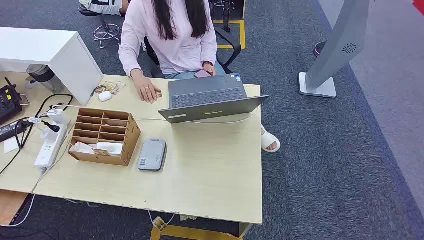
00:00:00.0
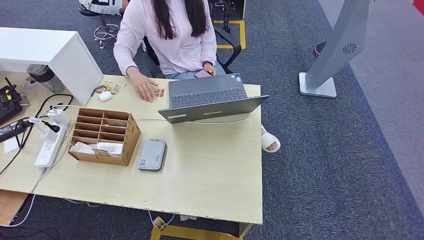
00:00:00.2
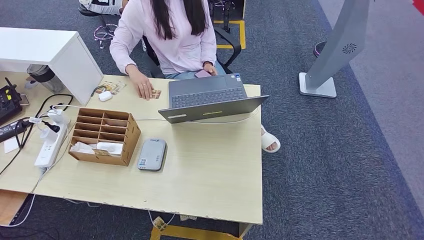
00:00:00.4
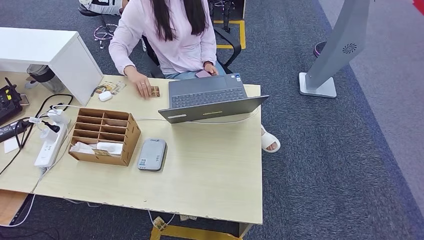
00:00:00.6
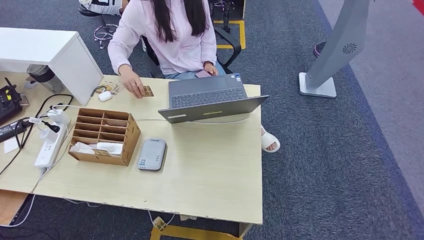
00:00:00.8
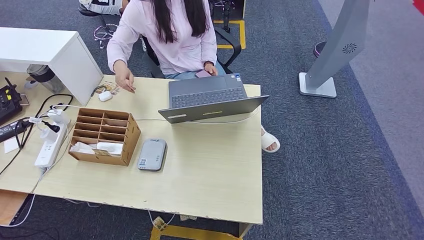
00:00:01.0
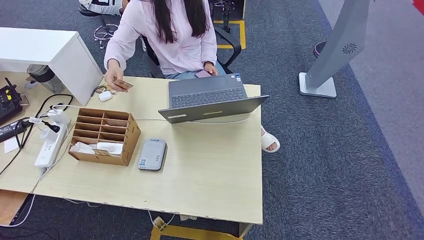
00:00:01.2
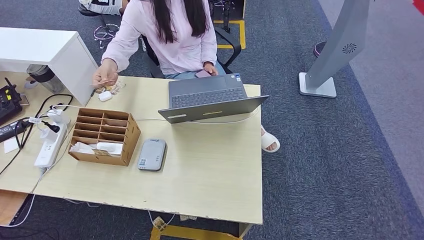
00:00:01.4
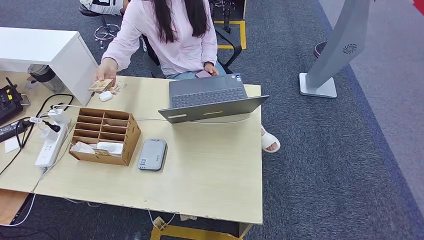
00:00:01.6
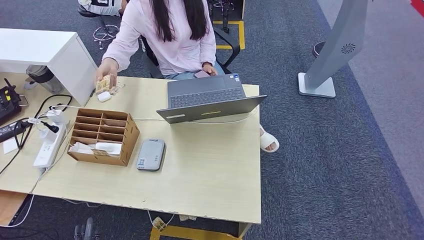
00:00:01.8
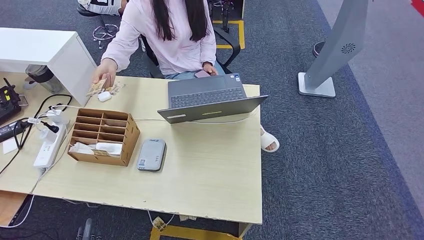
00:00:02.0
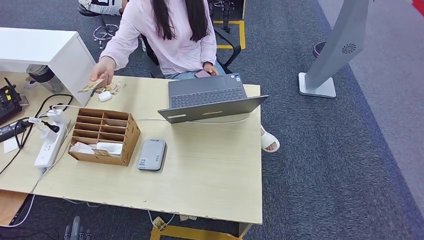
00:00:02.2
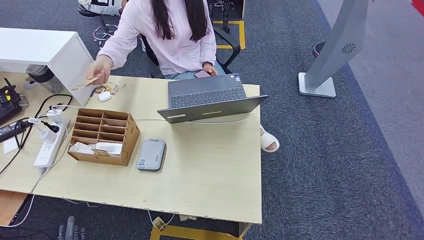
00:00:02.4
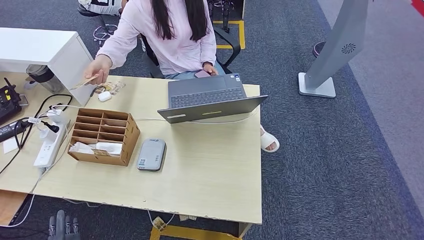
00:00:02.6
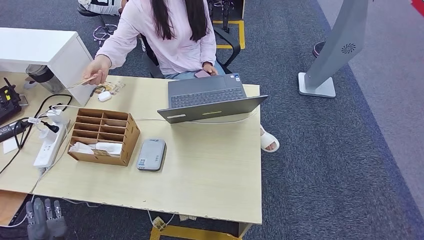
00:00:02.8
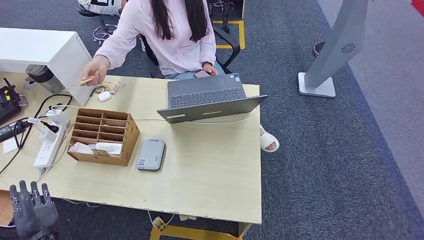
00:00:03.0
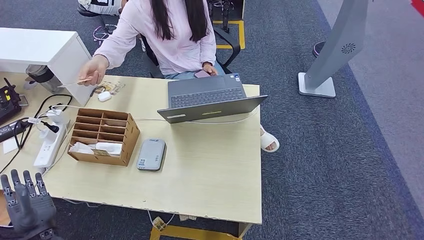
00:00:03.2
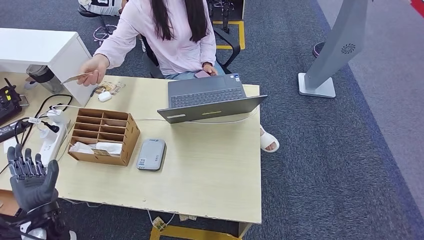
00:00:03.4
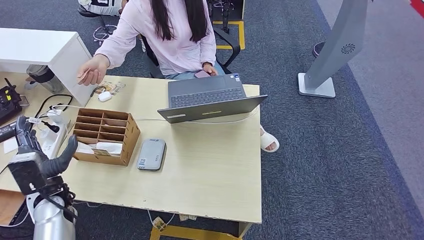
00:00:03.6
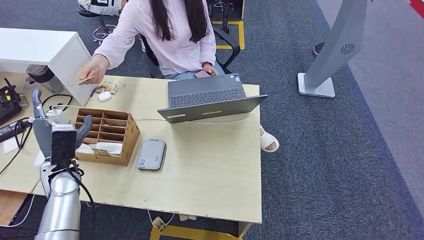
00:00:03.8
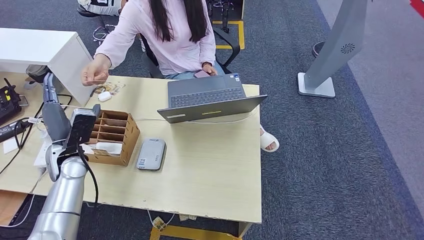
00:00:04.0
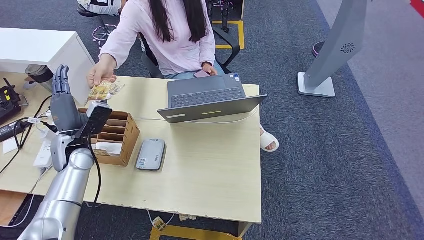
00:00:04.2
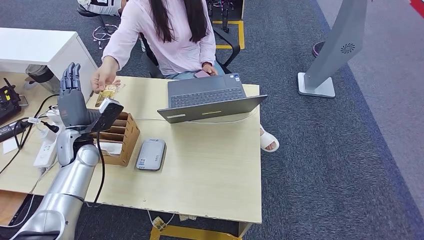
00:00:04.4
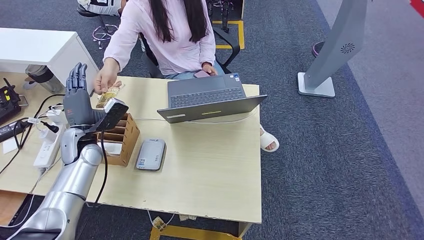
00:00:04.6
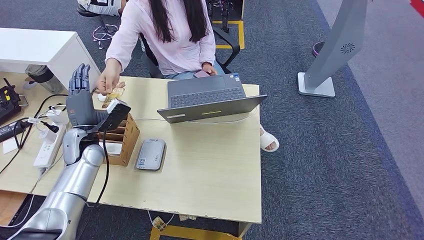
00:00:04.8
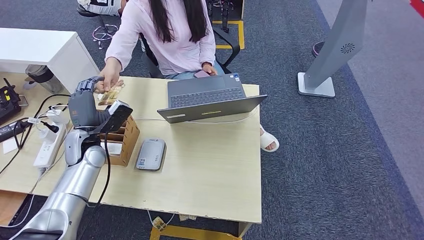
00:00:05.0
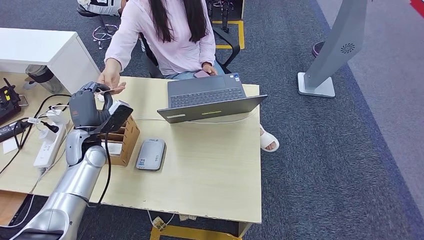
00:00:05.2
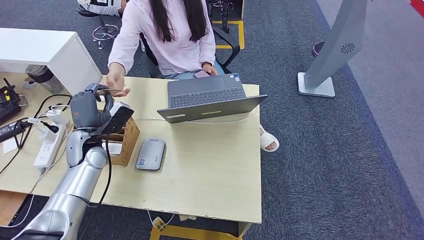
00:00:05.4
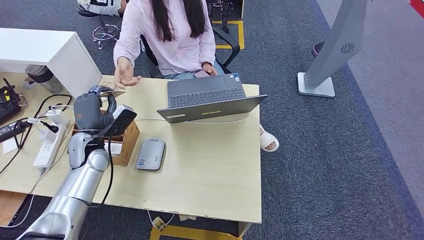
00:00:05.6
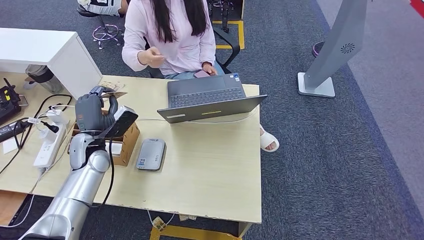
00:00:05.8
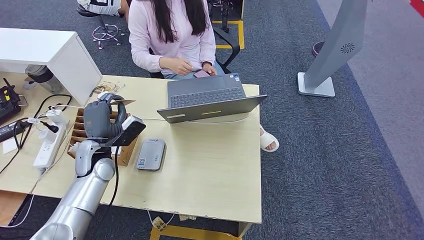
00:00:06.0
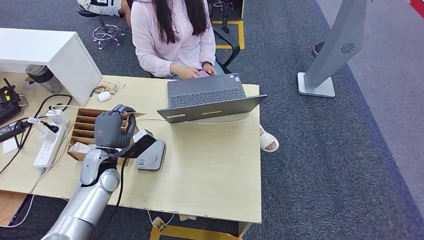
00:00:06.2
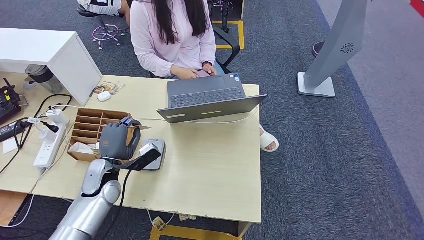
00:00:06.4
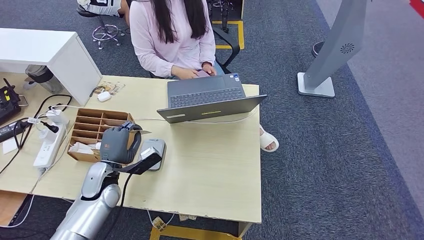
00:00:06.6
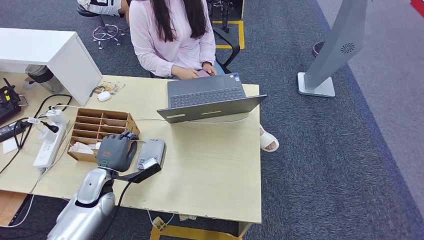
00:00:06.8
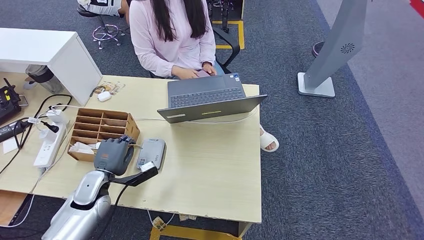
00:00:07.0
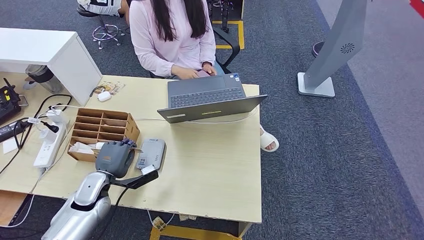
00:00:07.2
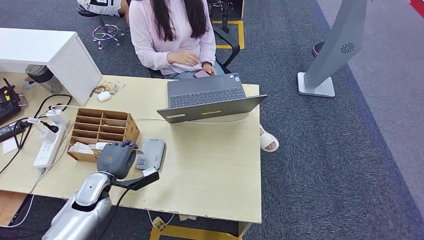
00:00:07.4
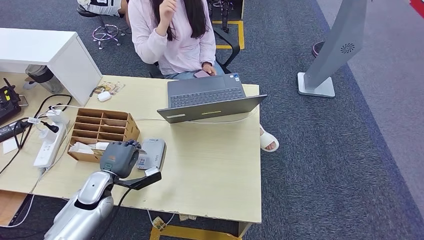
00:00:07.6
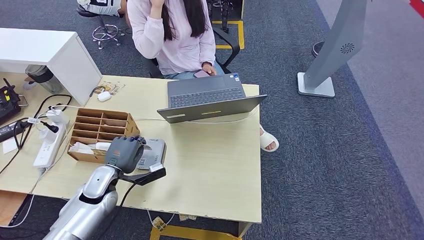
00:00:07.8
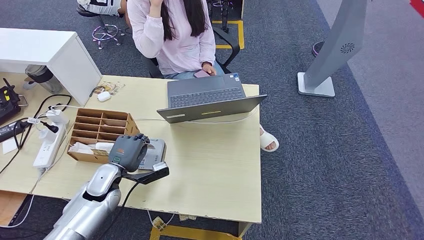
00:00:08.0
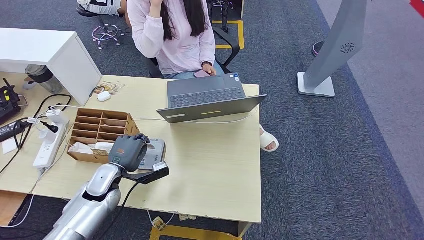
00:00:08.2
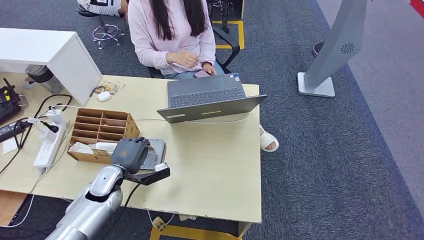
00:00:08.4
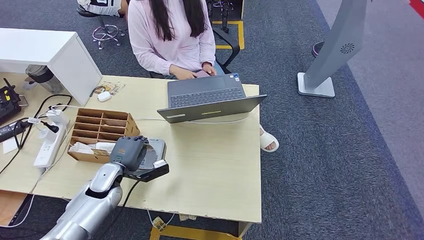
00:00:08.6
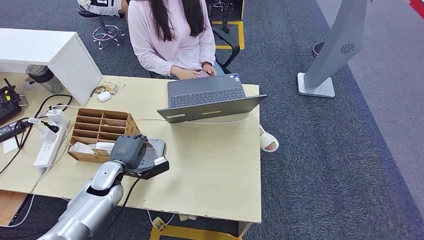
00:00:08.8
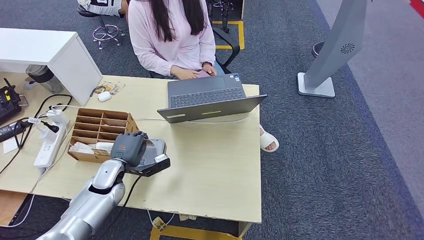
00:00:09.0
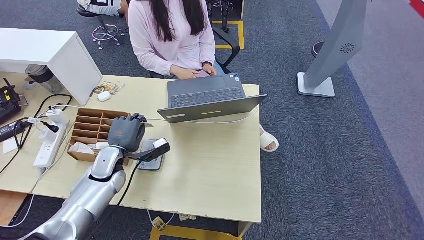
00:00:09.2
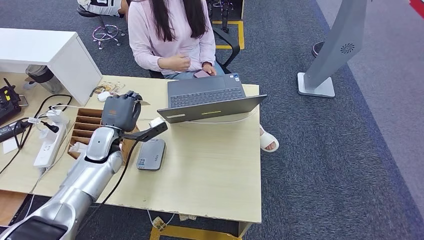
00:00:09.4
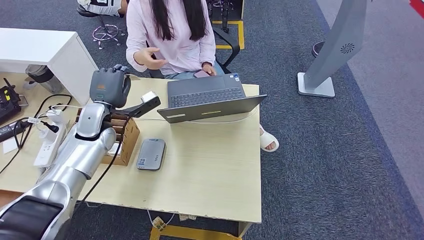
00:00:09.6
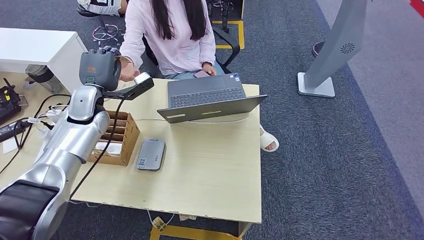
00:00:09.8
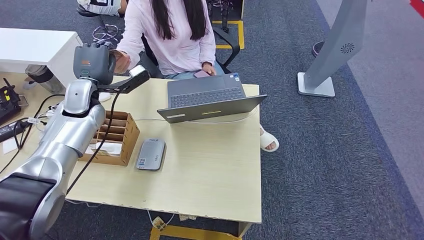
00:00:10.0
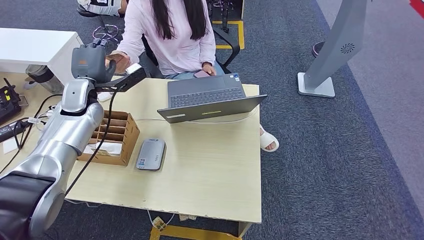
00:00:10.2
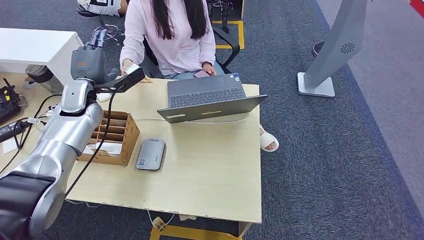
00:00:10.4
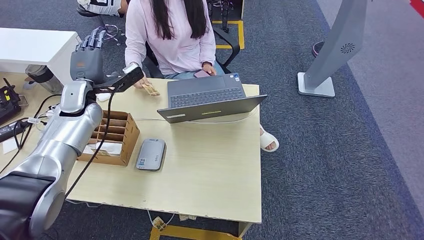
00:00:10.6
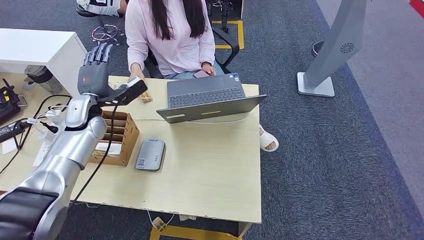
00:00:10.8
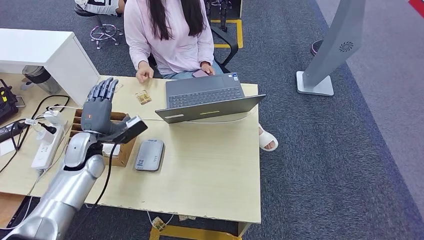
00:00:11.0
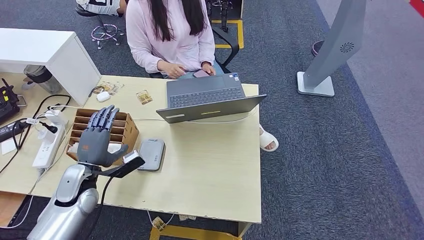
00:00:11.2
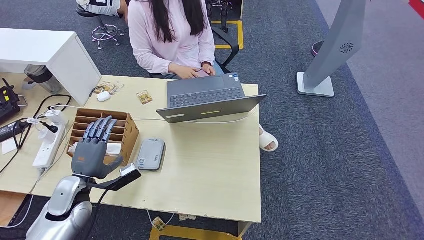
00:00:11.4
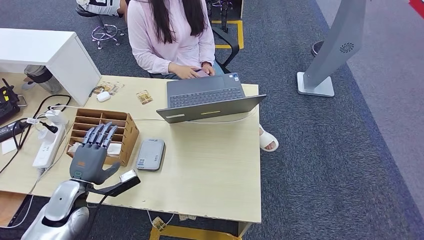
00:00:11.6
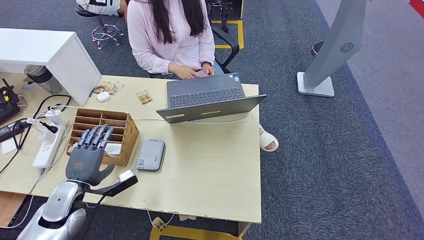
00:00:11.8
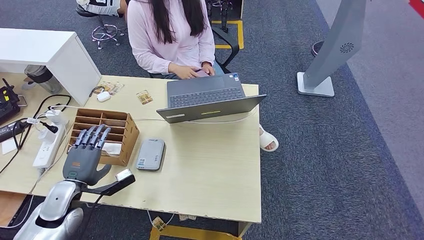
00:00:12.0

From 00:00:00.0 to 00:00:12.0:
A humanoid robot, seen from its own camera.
Step, from 00:00:00.0 to 00:00:05.8: Take the ID card from the person's hand.
Step, from 00:00:06.0 to 00:00:09.4: Place the ID card on the card reader.
Step, from 00:00:09.6 to 00:00:10.8: Hand the ID card to the person.
From 00:00:01.6 to 00:00:03.0: The left hand travels upward, to the left and forward by about 25 cm.
From 00:00:03.0 to 00:00:04.4: The left hand goes roughly 25 cm forward and upward.
From 00:00:04.4 to 00:00:06.0: The left hand changes place by some 5 cm.
From 00:00:06.0 to 00:00:07.6: The left hand shifts about 10 cm downward and backward.
From 00:00:07.6 to 00:00:09.0: The hands make only small movements.
From 00:00:09.0 to 00:00:10.4: The left hand moves upward and forward, some 25 cm.
From 00:00:10.4 to 00:00:12.0: The left hand moves backward and downward, roughly 25 cm.

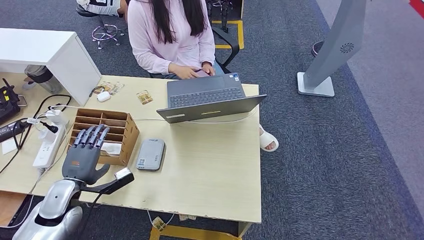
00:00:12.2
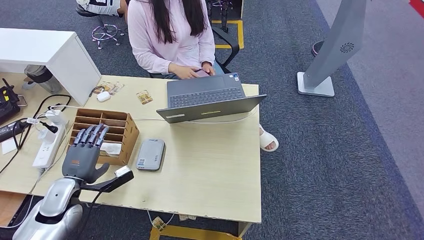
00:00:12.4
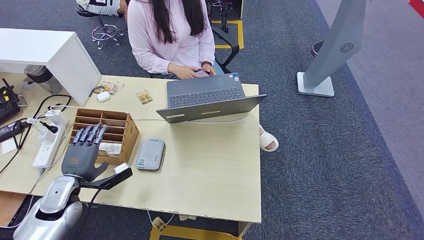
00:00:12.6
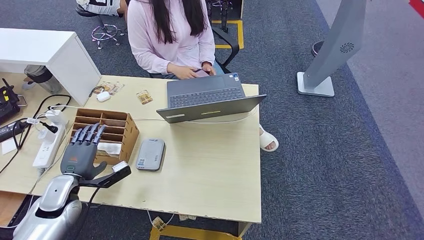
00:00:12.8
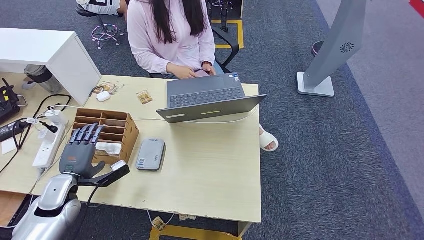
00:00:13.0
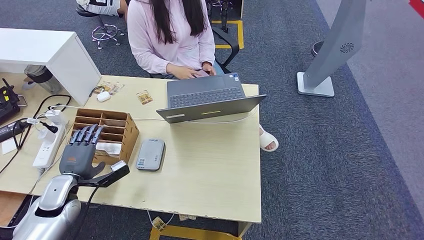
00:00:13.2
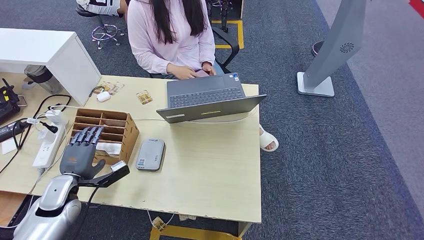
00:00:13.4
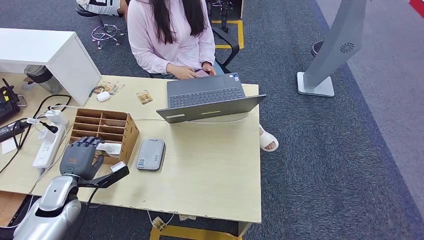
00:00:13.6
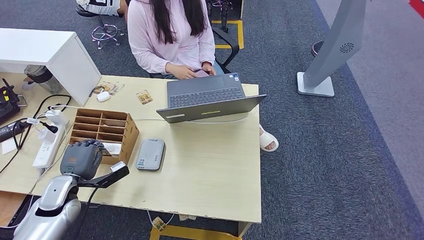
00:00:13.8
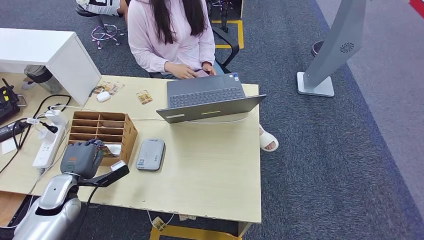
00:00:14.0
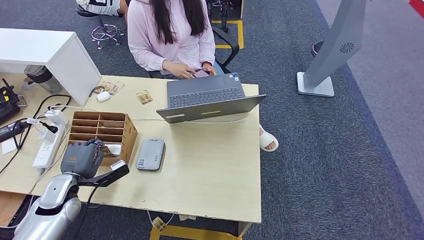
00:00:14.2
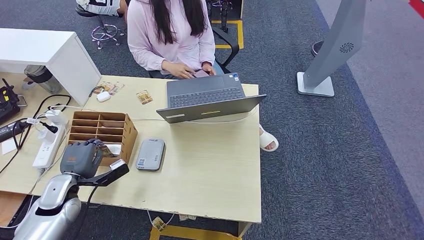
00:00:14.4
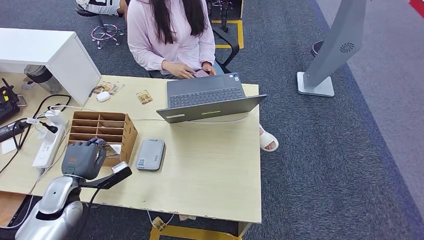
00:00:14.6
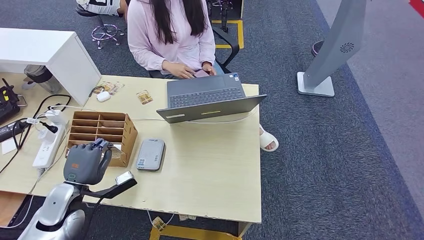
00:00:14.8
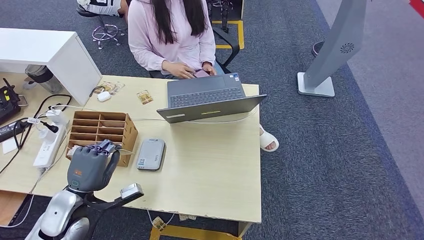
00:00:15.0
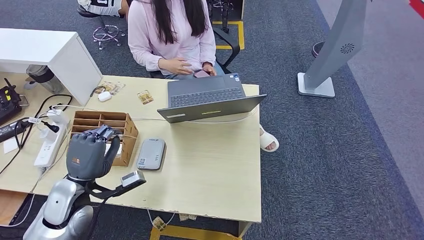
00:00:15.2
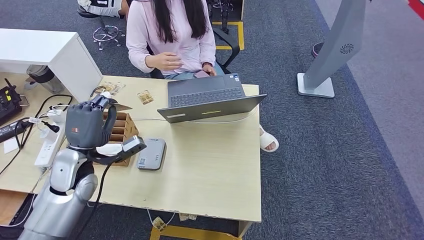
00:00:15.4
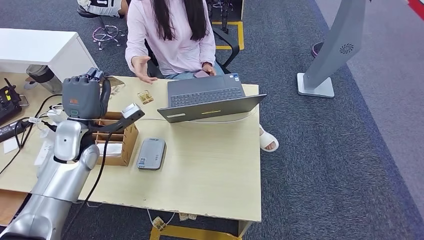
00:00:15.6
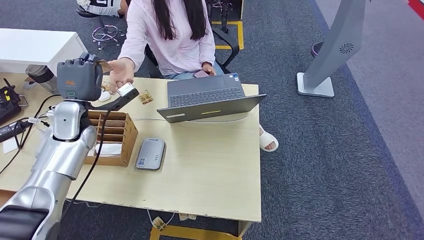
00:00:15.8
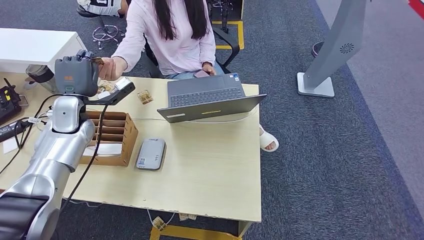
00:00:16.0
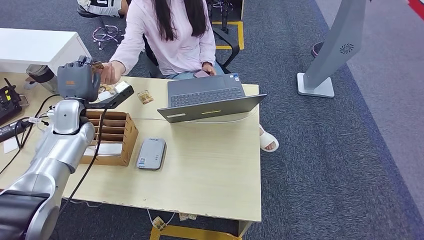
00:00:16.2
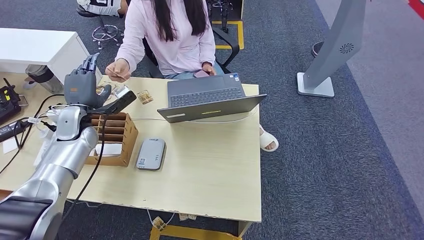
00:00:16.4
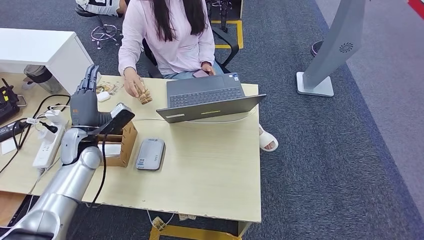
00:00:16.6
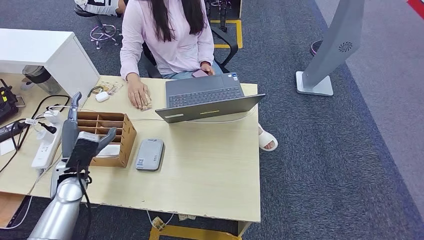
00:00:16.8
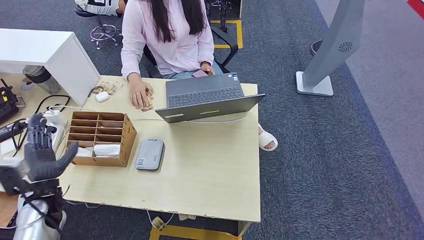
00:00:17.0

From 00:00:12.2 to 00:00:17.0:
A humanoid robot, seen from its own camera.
Step, from 00:00:12.2 to 00:00:14.6: Pick up the room key from the key card box.
Step, from 00:00:14.8 to 00:00:17.0: Hand the room key to the person.
From 00:00:12.2 to 00:00:13.8: There are only small adjustments of the hands.
From 00:00:13.8 to 00:00:15.4: The left hand heads upward and to the right, covering approximately 15 cm.
From 00:00:15.4 to 00:00:17.0: The left hand heads to the left and downward, covering some 10 cm, and goes forward and returns, about 15 cm each way.
